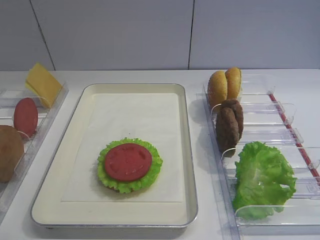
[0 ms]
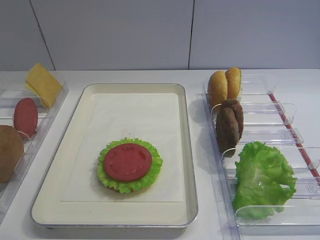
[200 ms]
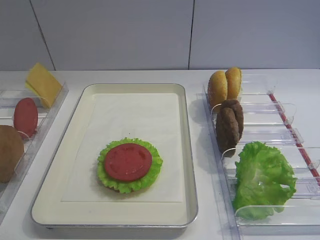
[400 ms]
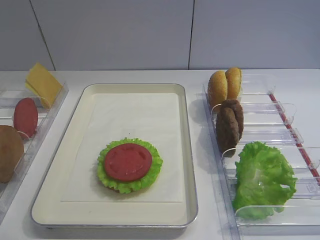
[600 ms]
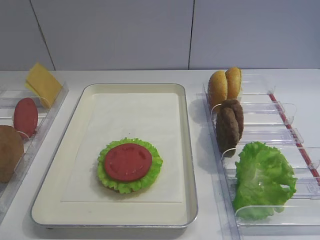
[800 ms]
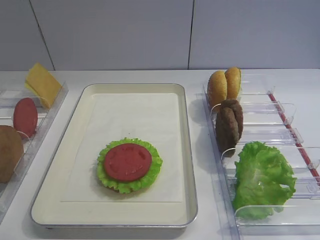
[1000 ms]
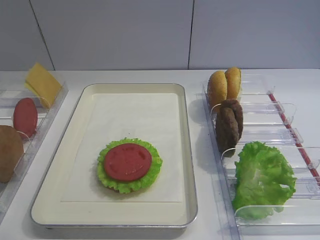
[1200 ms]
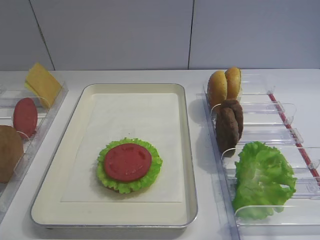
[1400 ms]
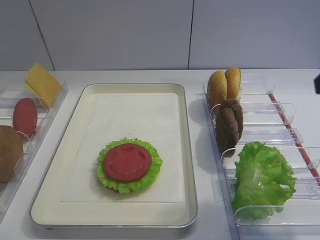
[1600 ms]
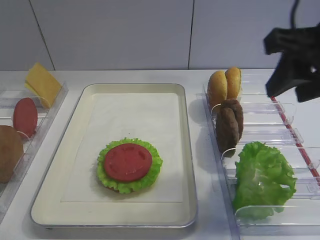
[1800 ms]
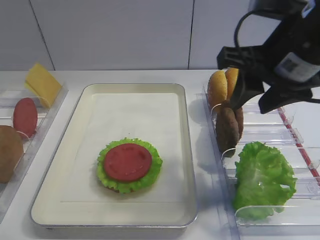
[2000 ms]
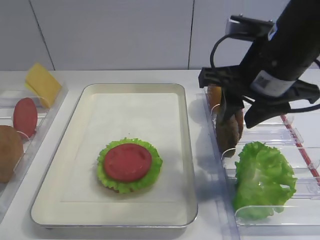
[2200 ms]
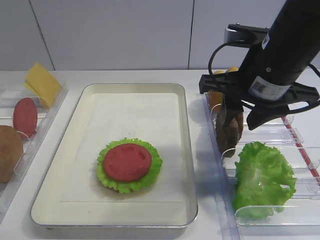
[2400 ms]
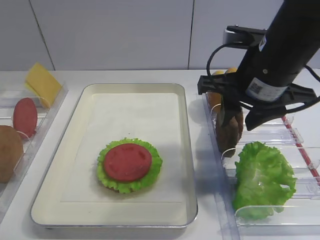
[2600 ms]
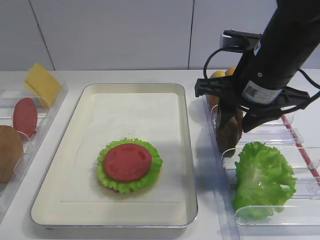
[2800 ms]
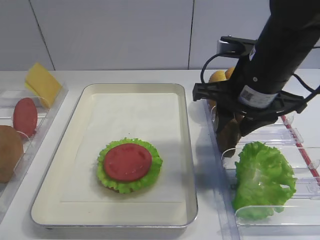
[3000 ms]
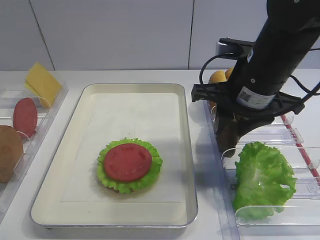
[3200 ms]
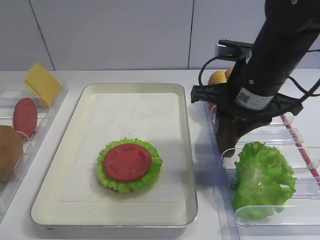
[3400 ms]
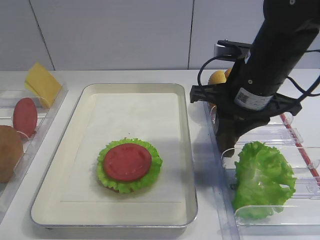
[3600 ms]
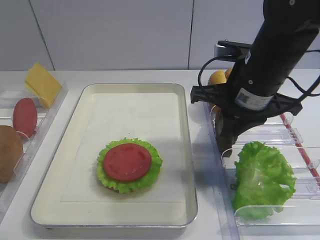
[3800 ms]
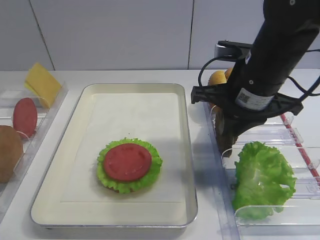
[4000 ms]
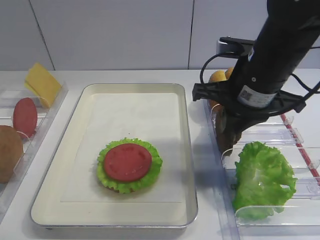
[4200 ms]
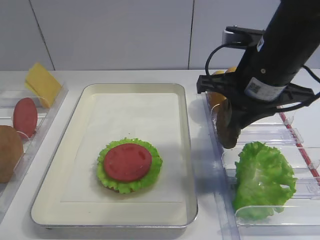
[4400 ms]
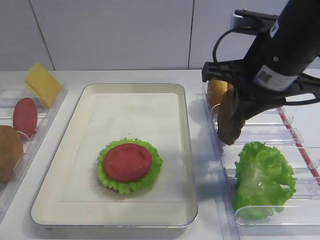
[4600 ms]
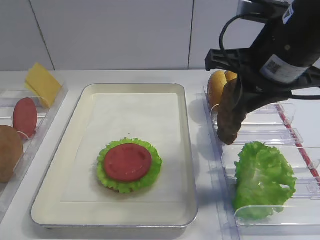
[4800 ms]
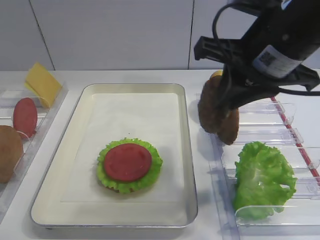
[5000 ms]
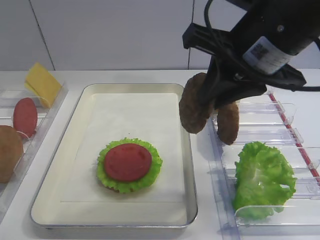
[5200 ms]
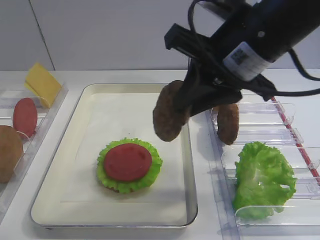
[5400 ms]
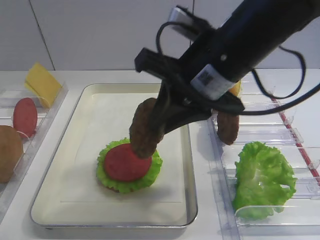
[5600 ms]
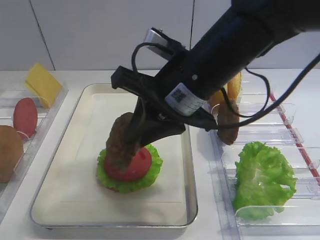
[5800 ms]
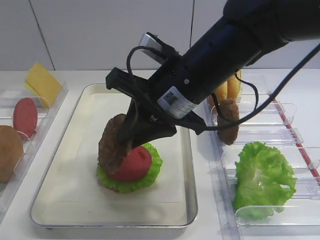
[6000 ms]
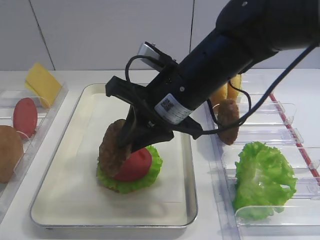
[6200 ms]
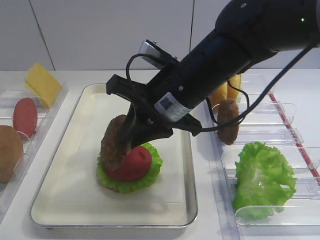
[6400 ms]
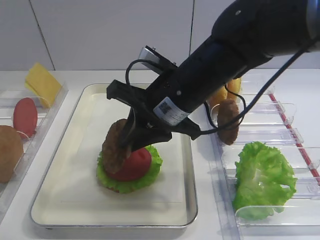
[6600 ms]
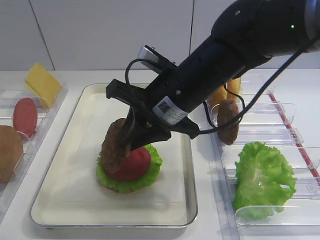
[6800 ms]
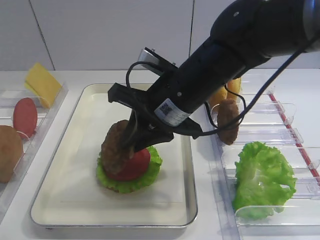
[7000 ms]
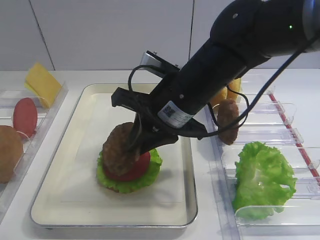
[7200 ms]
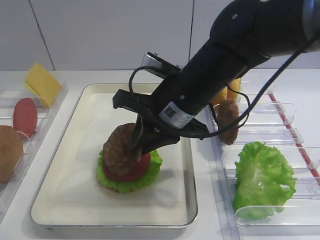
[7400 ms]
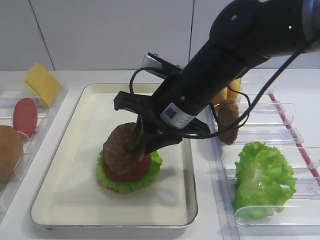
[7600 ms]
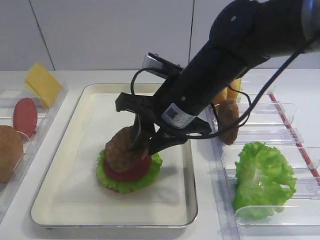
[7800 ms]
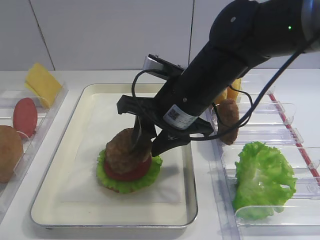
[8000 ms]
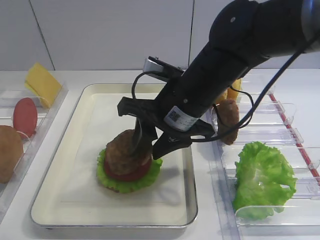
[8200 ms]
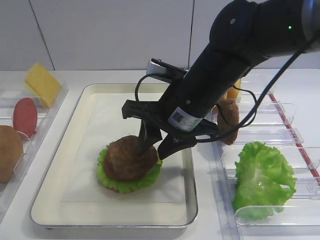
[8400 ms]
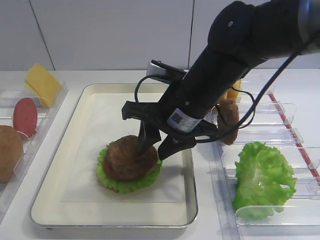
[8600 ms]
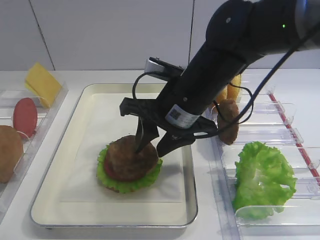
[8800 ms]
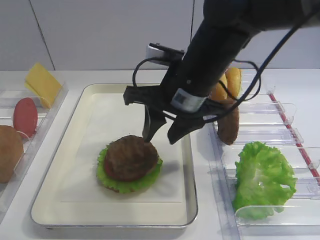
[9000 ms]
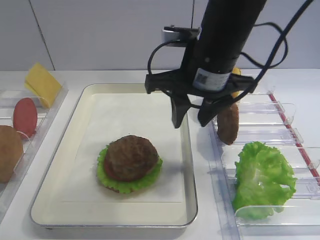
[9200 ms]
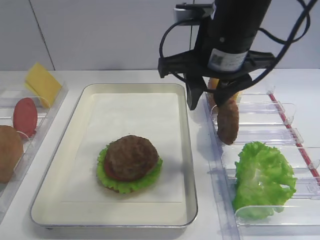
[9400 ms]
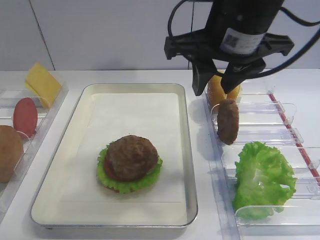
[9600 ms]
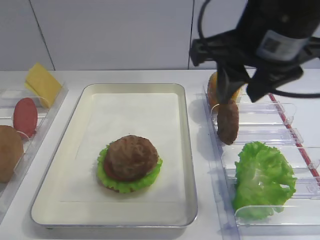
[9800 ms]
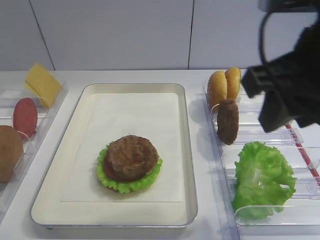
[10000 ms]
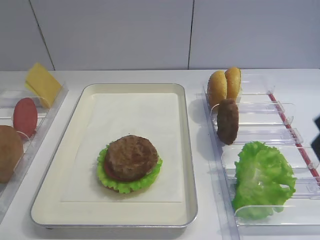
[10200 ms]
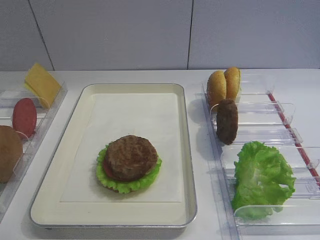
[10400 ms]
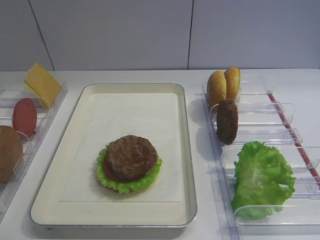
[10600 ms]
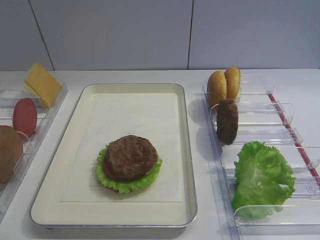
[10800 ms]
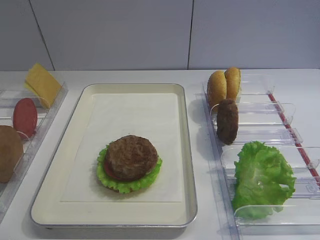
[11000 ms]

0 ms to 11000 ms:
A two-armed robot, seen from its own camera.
Step, 0 ms to 4600 ms: Pick up the cutlet with the right gripper.
Step, 4800 ms to 9000 ms: Place the cutlet on the tomato slice with the right gripper.
1600 ms to 3200 ms: The right gripper travels to the left, downward and forward by about 20 cm.
3200 ms to 4800 ms: The right gripper moves upward, some 5 cm, and closes.
4800 ms to 6200 ms: The right gripper is displaced to the left and downward by some 10 cm.
6200 ms to 7800 ms: The right gripper opens up.
7800 ms to 9400 ms: The right gripper shifts approximately 10 cm upward.
9400 ms to 11000 ms: The right gripper moves backward and to the right, approximately 35 cm.

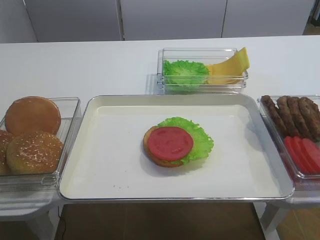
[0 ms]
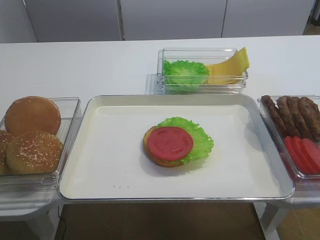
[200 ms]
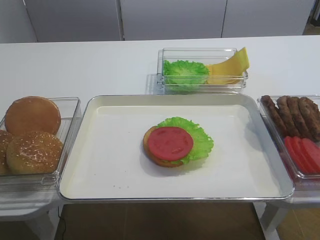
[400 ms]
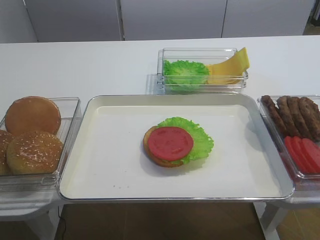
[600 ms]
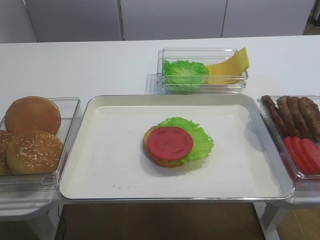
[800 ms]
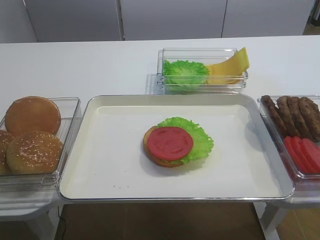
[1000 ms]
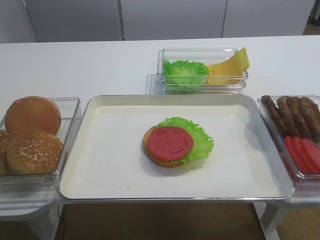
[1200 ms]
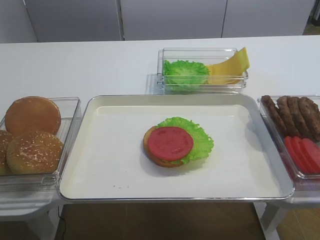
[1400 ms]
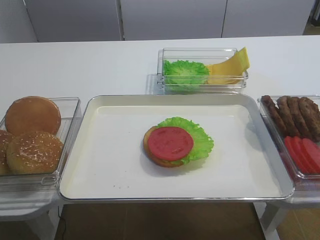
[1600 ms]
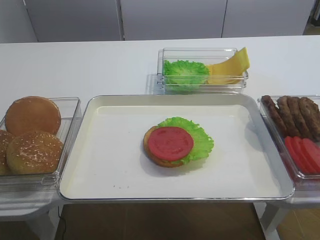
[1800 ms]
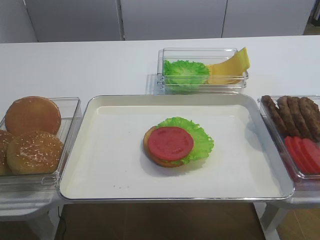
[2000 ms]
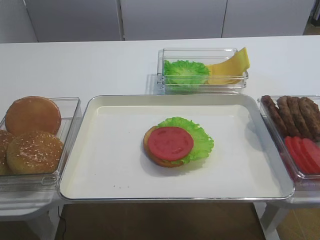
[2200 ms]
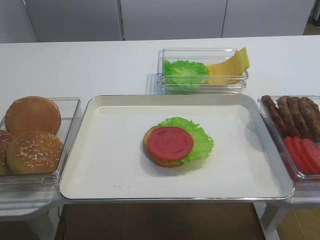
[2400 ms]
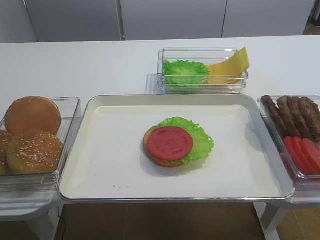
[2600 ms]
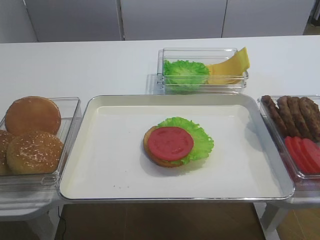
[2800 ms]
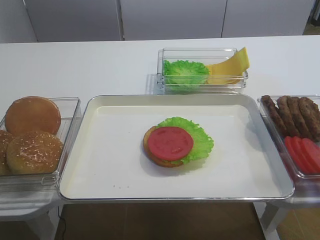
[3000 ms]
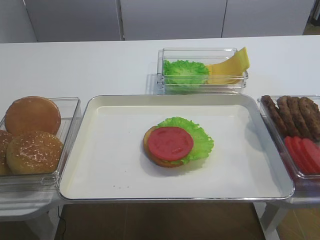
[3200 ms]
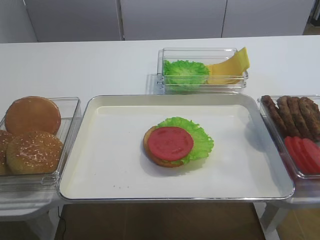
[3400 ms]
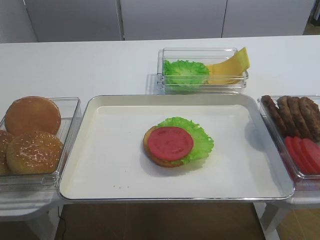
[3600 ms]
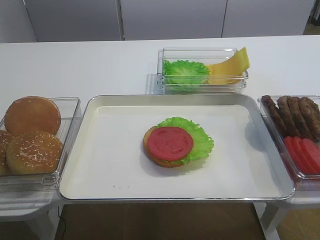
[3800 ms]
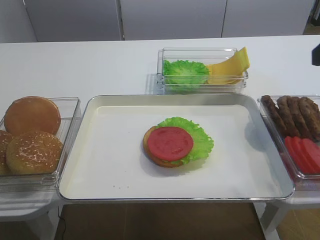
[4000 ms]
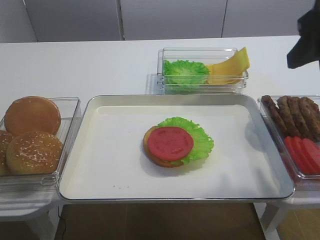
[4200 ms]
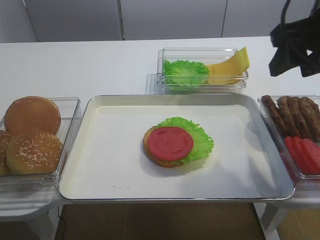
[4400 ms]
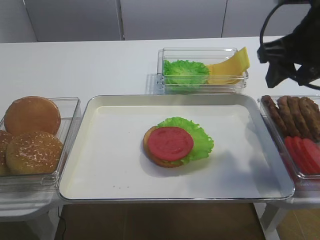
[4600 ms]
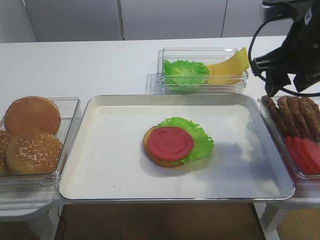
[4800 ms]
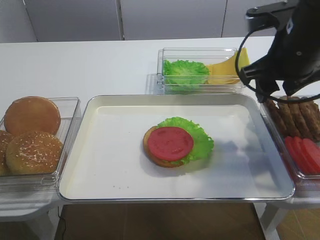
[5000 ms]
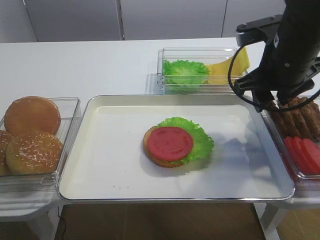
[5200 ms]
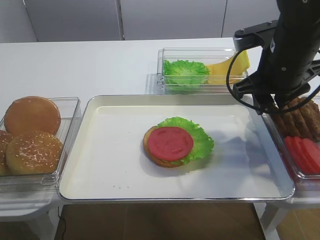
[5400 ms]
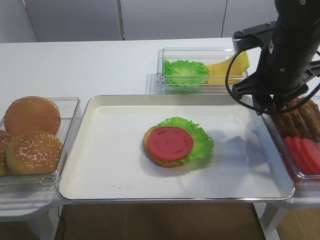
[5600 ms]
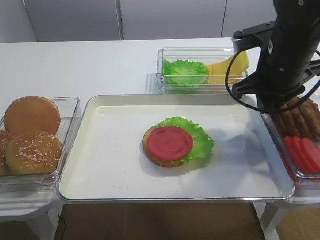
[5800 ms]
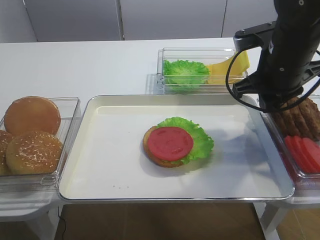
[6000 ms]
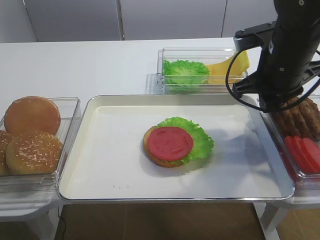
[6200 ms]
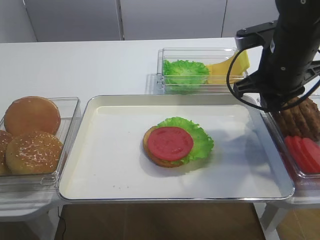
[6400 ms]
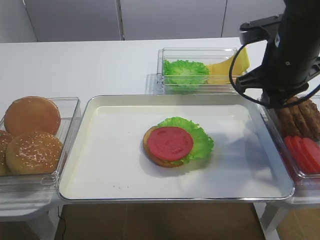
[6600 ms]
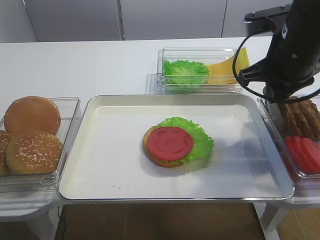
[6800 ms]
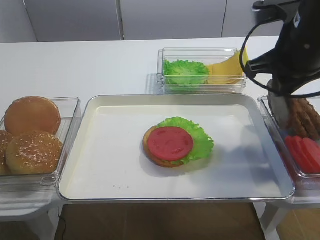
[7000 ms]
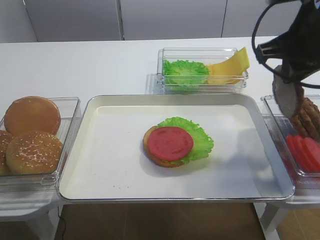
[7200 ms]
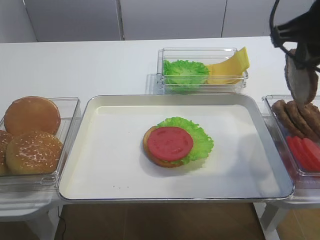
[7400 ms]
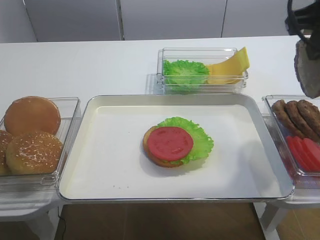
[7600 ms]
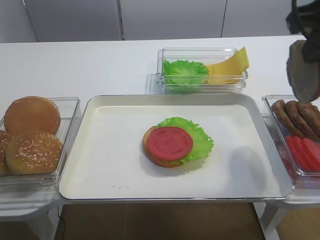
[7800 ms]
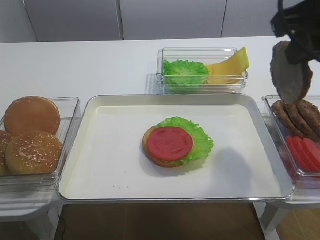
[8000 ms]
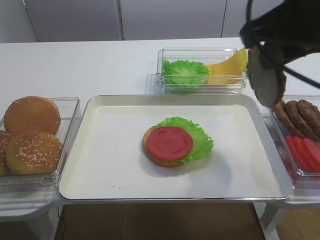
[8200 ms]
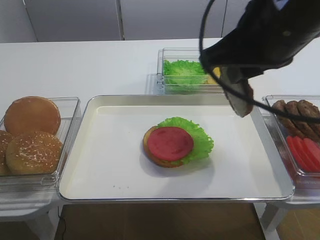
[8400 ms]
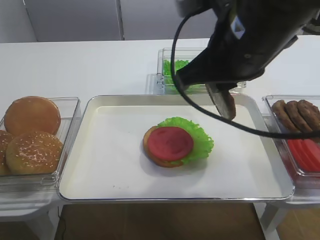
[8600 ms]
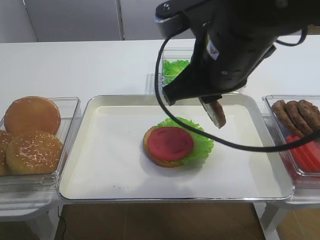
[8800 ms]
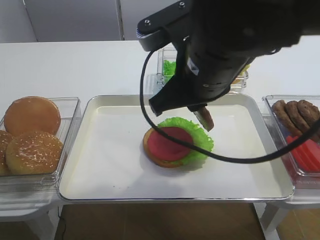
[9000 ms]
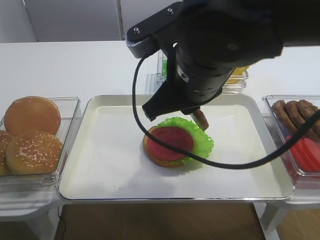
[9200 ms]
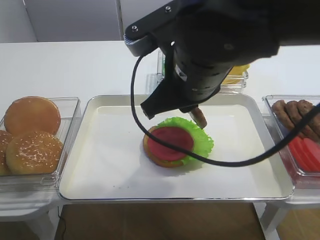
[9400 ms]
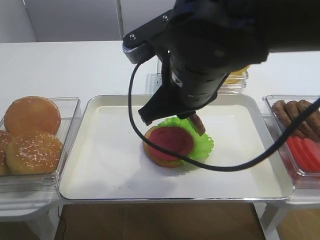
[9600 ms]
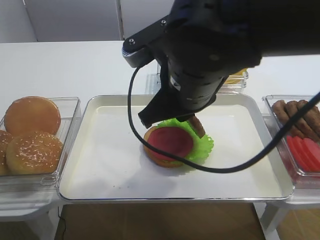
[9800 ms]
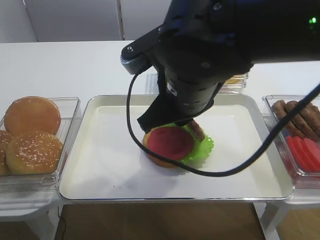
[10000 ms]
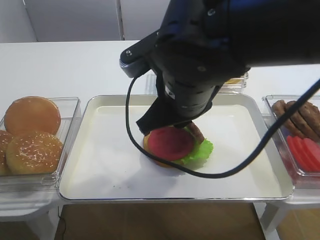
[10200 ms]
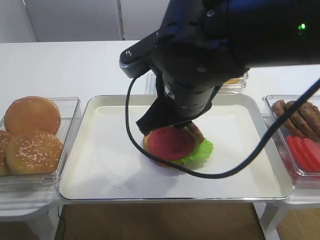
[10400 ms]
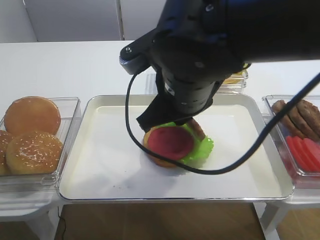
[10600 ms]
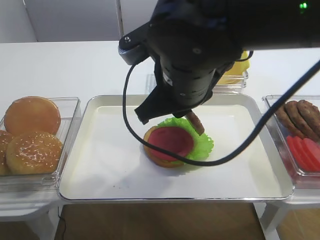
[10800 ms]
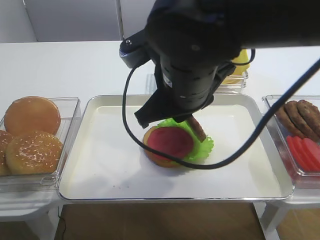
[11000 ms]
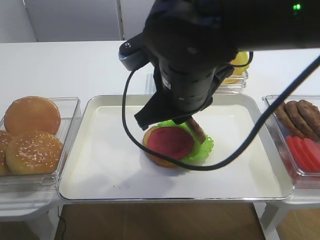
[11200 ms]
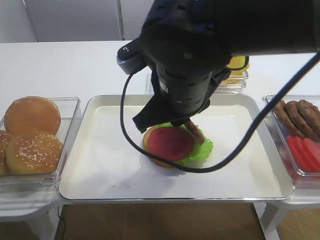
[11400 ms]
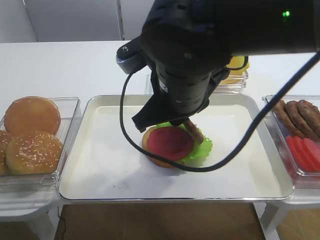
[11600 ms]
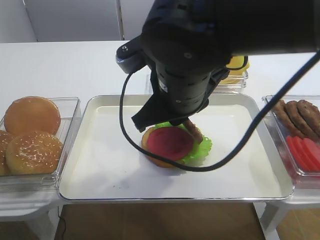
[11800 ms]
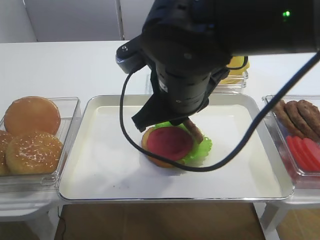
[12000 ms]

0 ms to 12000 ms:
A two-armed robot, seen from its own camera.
Step, 0 ms to 7000 ms: Pick up the cutlet with the right gripper.
3000 ms to 4400 ms: The right gripper shifts roughly 25 cm forward.
4400 ms to 6000 ms: The right gripper goes about 10 cm downward and forward, and closes.
6000 ms to 7600 ms: The right gripper heads upward and backward, covering approximately 15 cm.
7600 ms to 9000 ms: The right gripper moves to the left and downward, about 15 cm.
9000 ms to 12000 ms: There are only small adjustments of the grippers.
